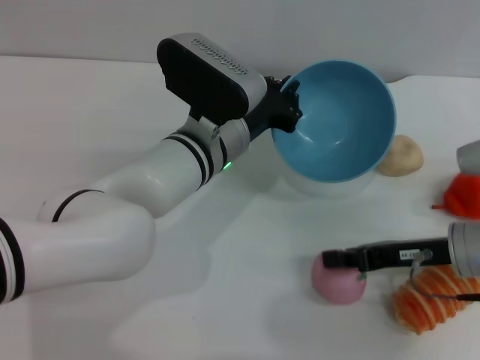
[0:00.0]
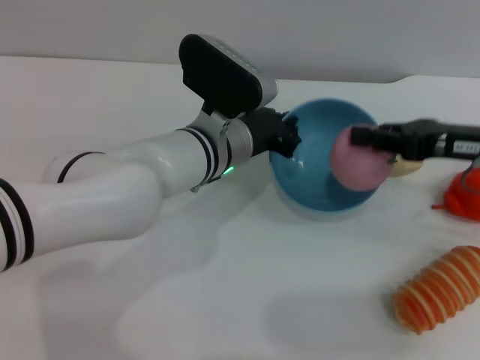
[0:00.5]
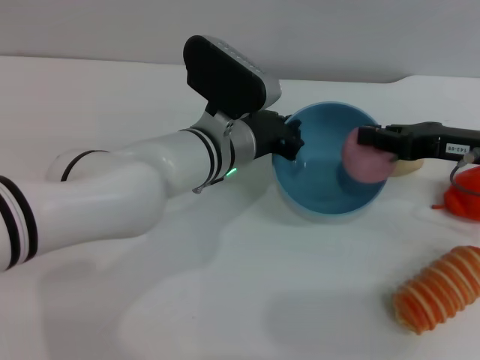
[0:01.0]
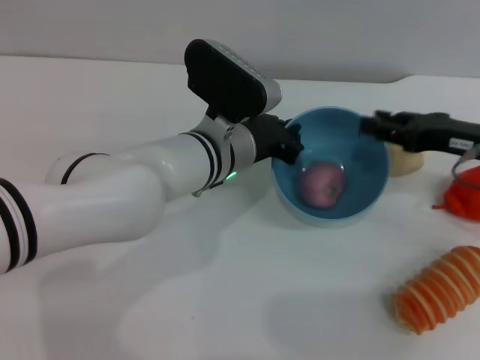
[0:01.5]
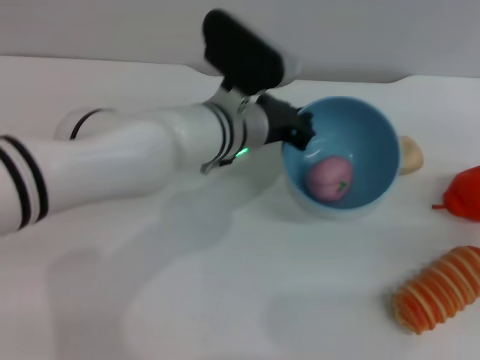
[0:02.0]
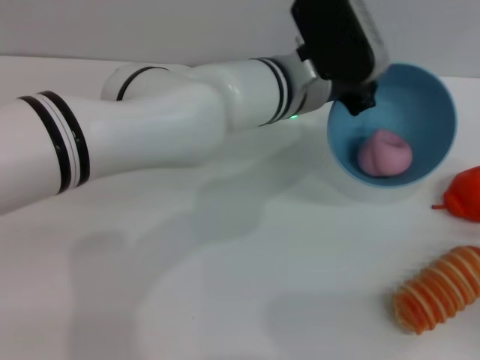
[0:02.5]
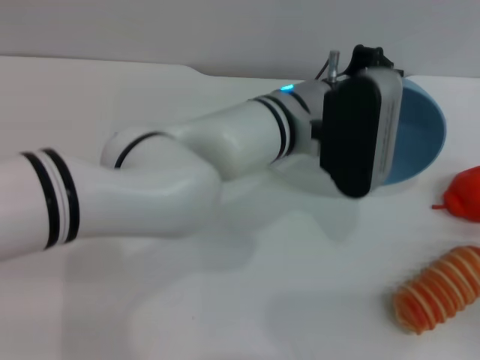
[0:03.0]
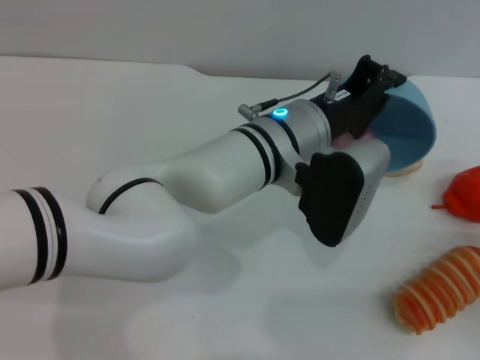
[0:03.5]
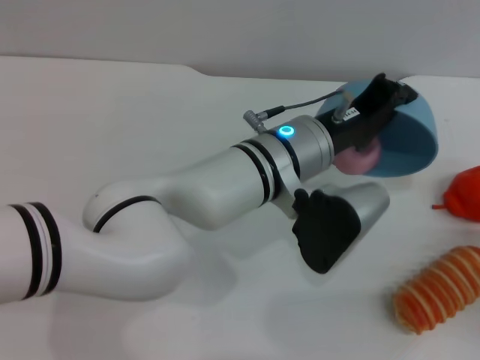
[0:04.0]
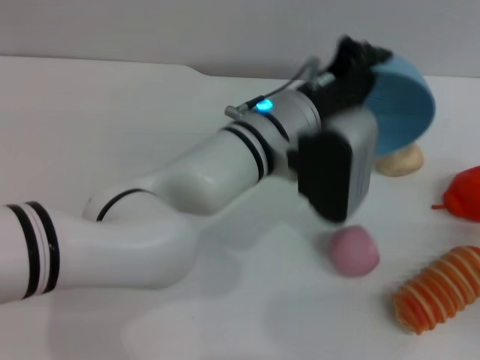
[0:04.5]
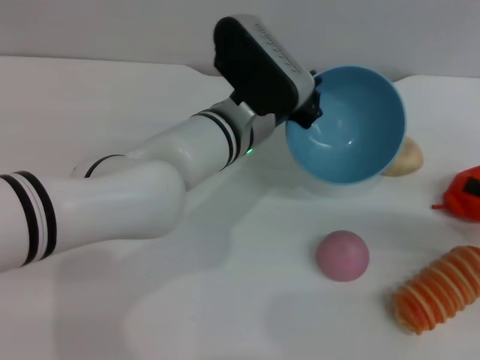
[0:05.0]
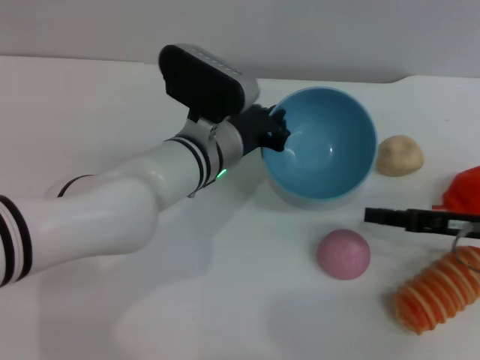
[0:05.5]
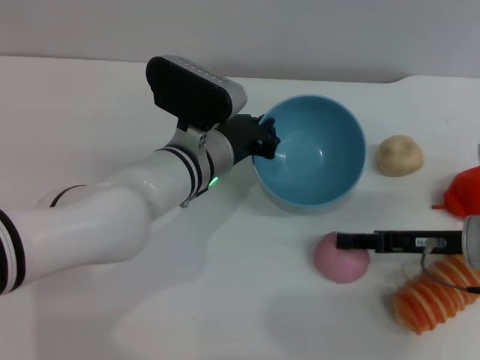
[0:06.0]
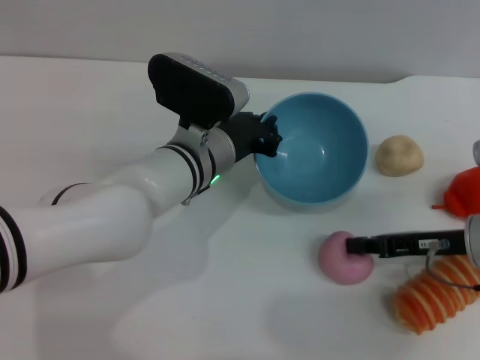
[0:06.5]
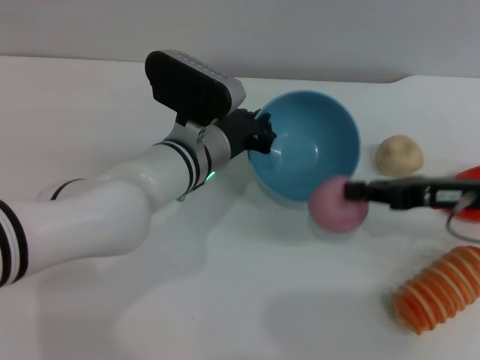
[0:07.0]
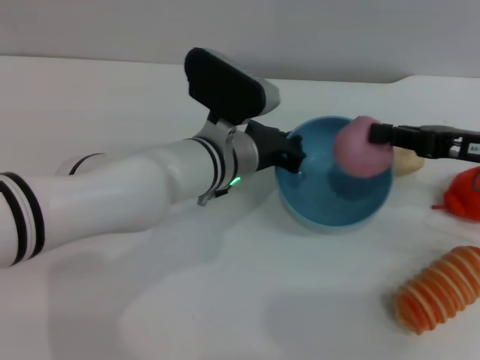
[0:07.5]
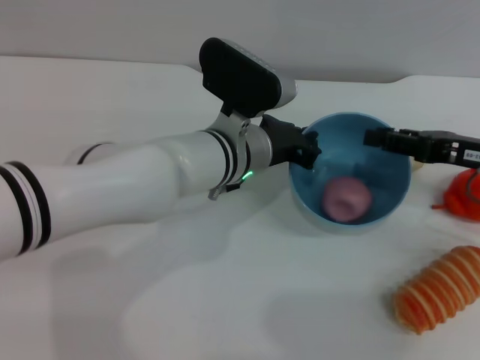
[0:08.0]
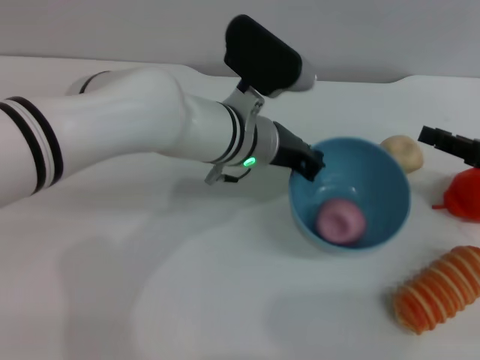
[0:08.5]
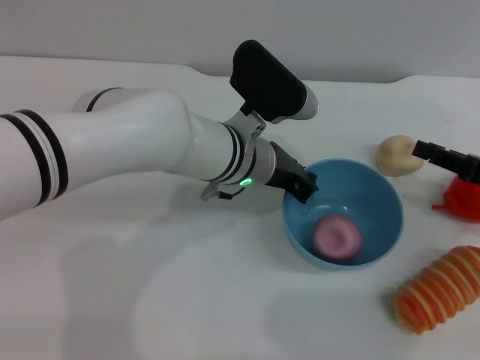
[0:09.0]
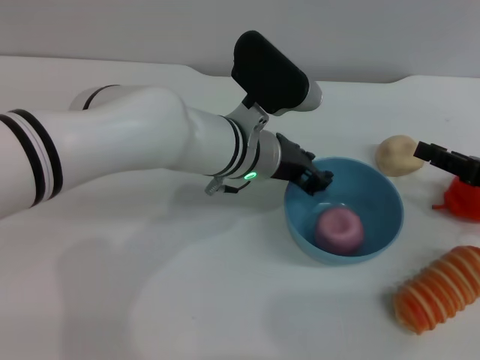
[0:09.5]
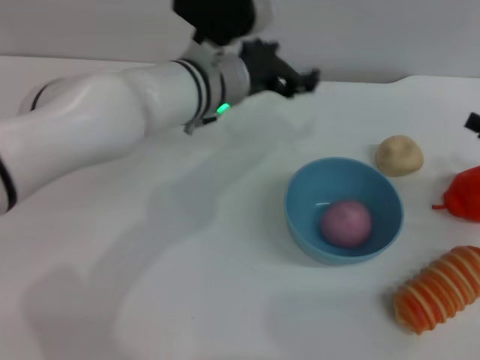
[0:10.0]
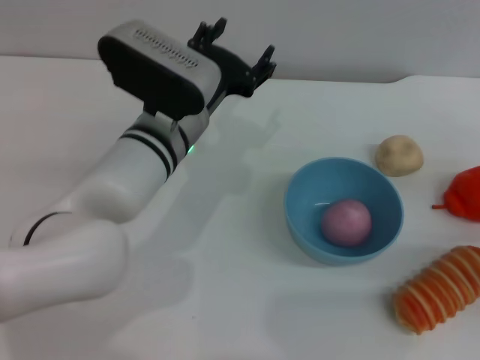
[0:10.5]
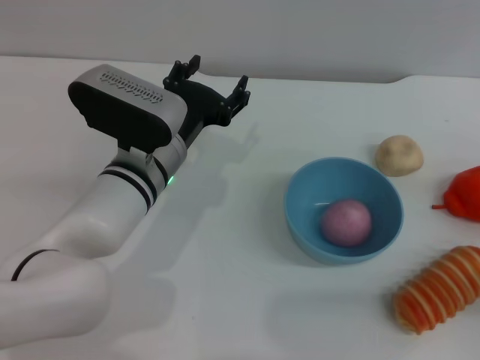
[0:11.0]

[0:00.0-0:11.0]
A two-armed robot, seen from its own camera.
Task of the whole recording: put the peach into the blue bowl and pour it out repeatedly.
Step, 0:00.5 to 0:01.5: Place the peach into the bowl.
Step, 0:02.0 to 0:04.5: Pour the peach out of bowl.
Step, 0:05.0 to 0:07.0: Pick up the peach with the right gripper.
Step, 0:07.5 to 0:08.0: Place the peach into the bowl.
Step, 0:08.5 to 0:09.5: Place the bowl on the table.
0:00.0 to 0:02.0: The right gripper heads to the right, covering about 15 cm.
0:02.0 to 0:03.5: The left gripper moves some 5 cm, while the right gripper moves backward, some 5 cm.
0:03.5 to 0:05.5: The left gripper heads to the left, covering approximately 5 cm. Meanwhile the right gripper travels to the left and forward by roughly 15 cm.
0:05.5 to 0:07.5: The right gripper goes about 10 cm upward, and closes its fingers.
0:07.5 to 0:09.0: The right gripper changes place by some 5 cm, and opens.
0:09.0 to 0:11.0: The left gripper is displaced to the left by approximately 10 cm, and opens up. The right gripper goes about 10 cm backward, downward and to the right.
